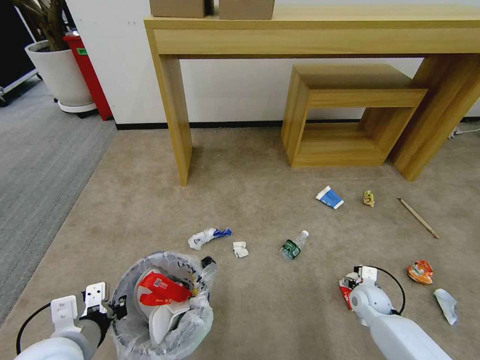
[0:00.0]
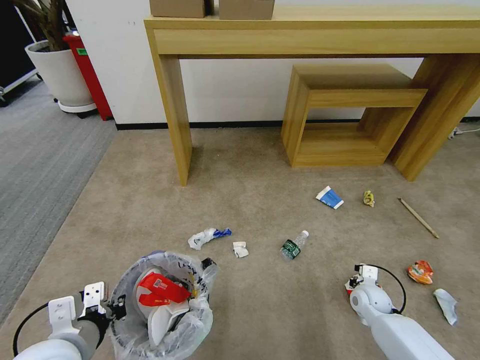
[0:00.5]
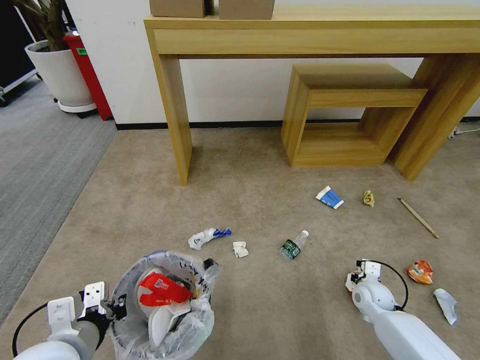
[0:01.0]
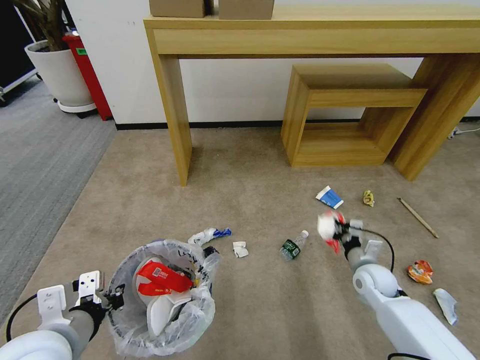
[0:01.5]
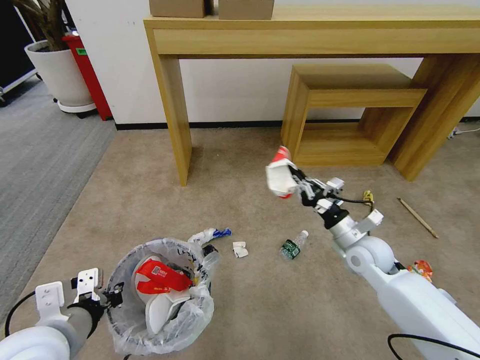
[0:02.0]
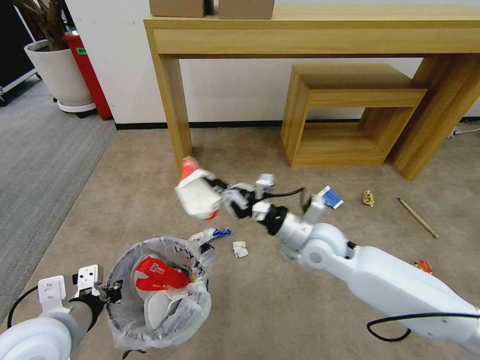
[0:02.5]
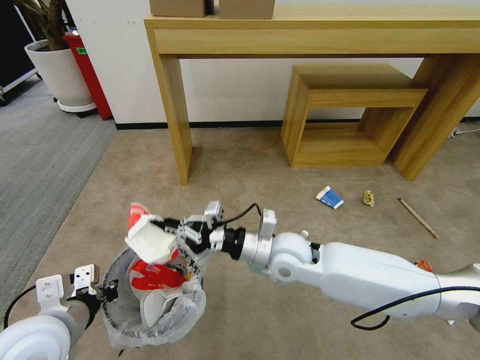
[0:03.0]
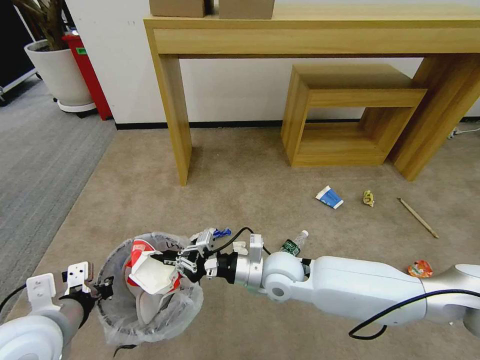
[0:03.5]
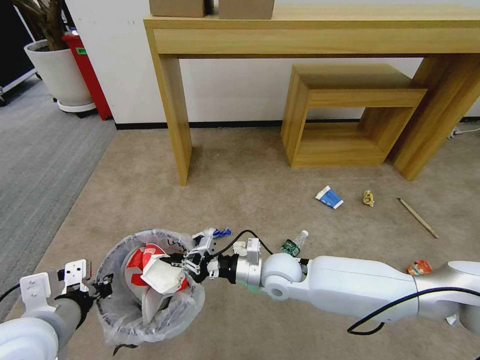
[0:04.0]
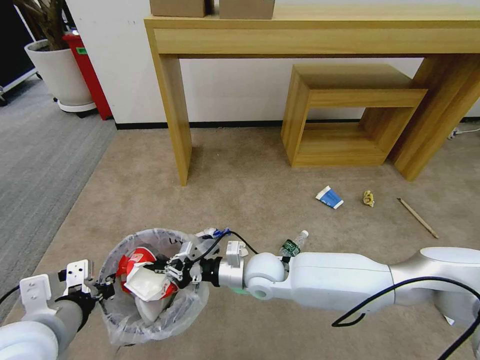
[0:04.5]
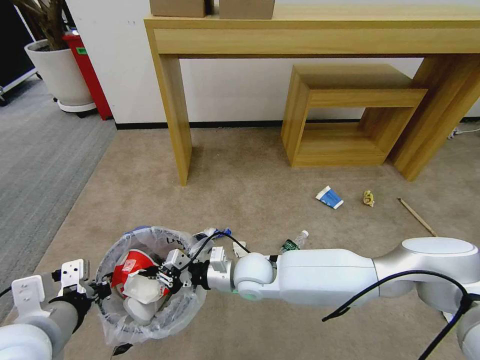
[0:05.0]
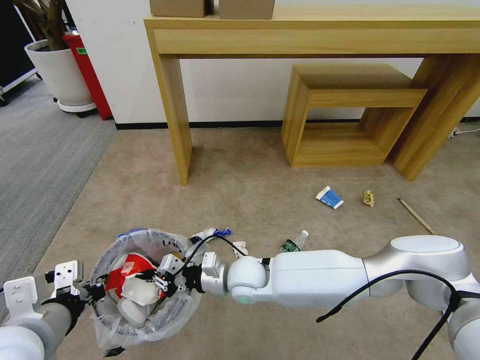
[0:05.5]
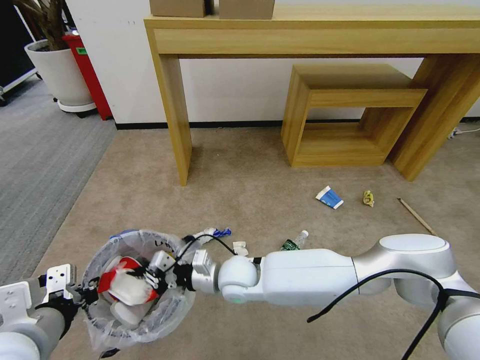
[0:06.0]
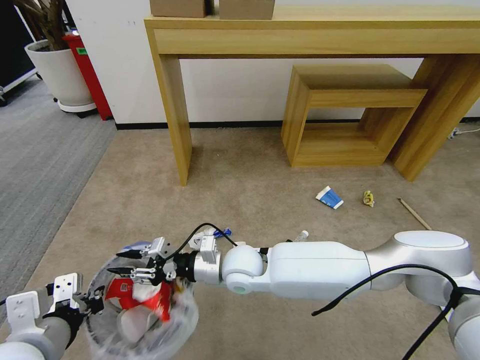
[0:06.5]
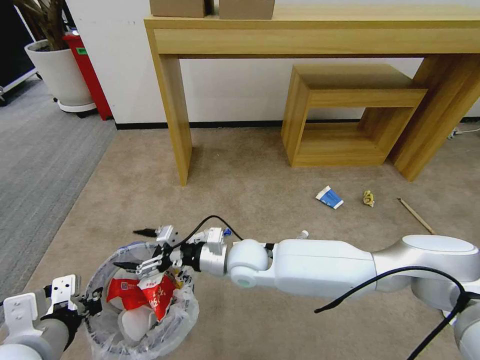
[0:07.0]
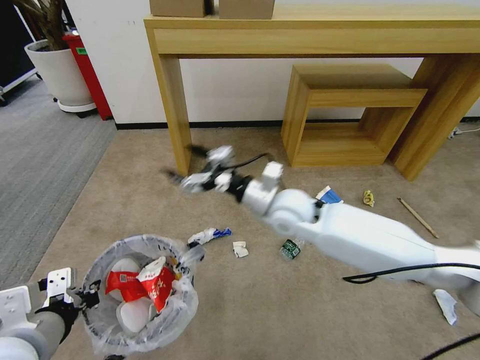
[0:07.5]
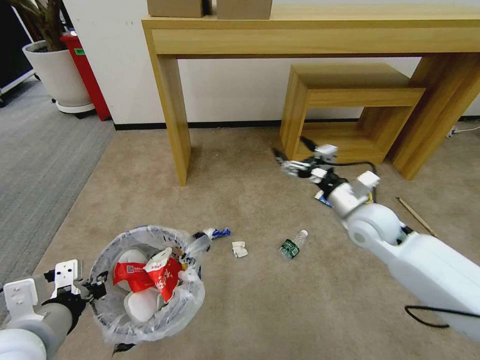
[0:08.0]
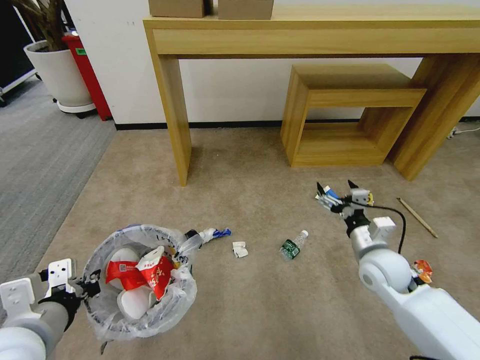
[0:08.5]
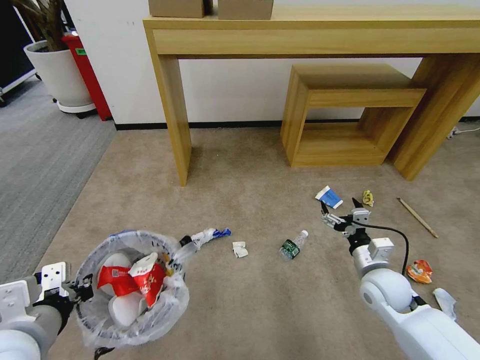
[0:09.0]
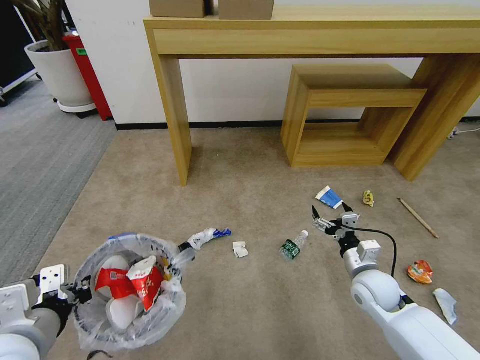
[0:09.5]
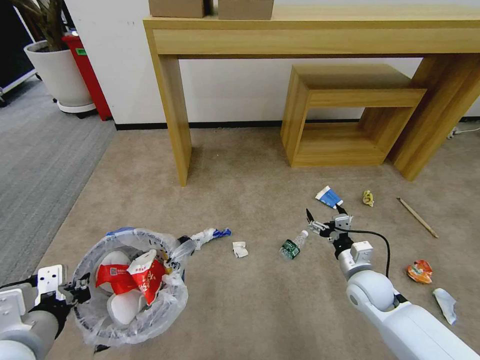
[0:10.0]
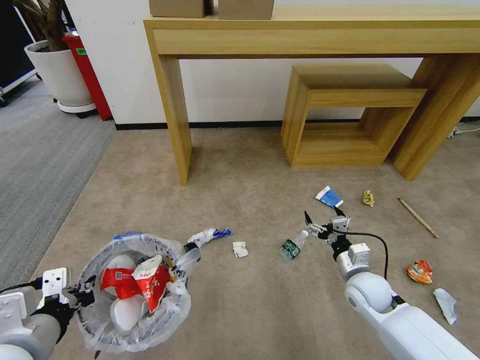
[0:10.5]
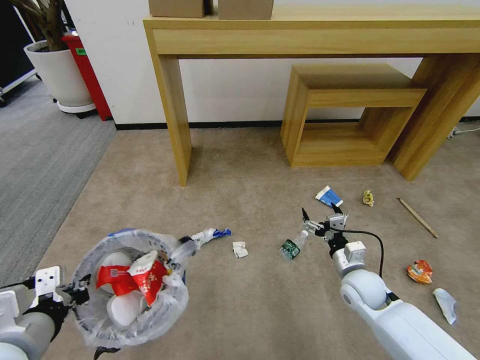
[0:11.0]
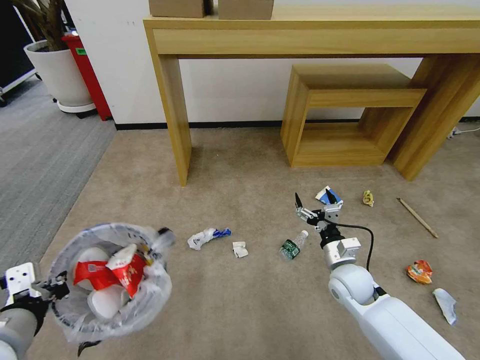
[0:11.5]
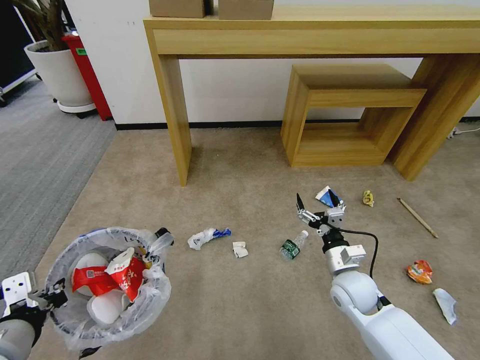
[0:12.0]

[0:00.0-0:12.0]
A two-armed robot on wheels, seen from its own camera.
Task of the whole recording: Pick up the trash bin and place the garbage on the floor into it.
0:00.0 to 0:02.0: The right gripper goes approximately 20 cm upward, and closes its fingers.
0:02.0 to 0:04.0: The right gripper heads to the left, covering about 20 cm.
0:04.0 to 0:06.0: The right gripper heads to the left, covering roughly 10 cm.
0:06.0 to 0:08.0: The right gripper travels to the right by roughly 30 cm, and opens.
0:08.0 to 0:10.0: The right gripper shifts about 15 cm downward and backward.
0:10.0 to 0:12.0: The grippers stay close to where they were, moving slightly.

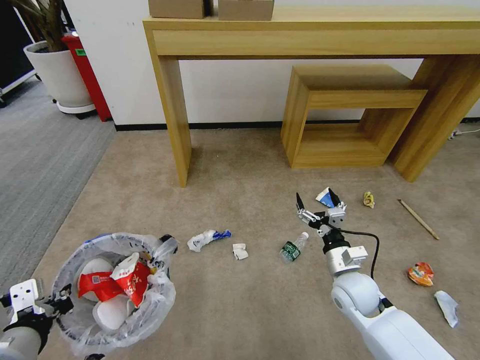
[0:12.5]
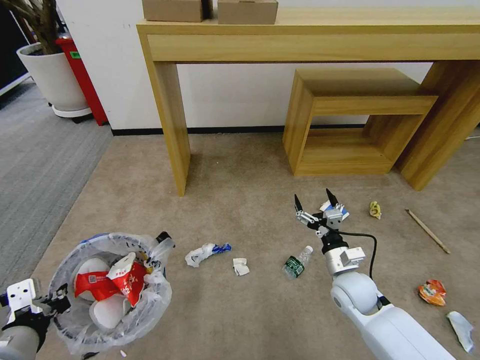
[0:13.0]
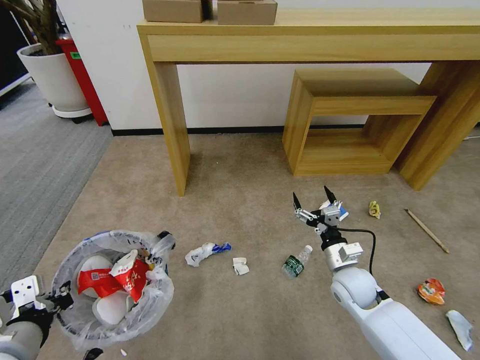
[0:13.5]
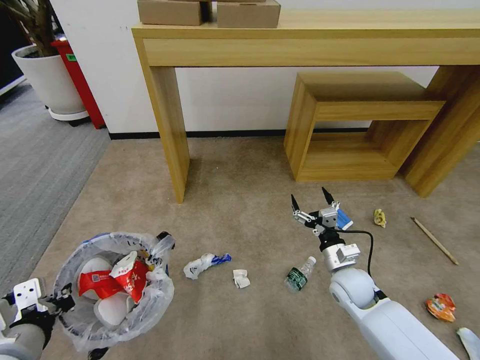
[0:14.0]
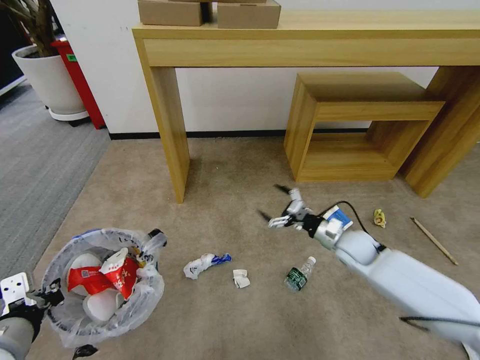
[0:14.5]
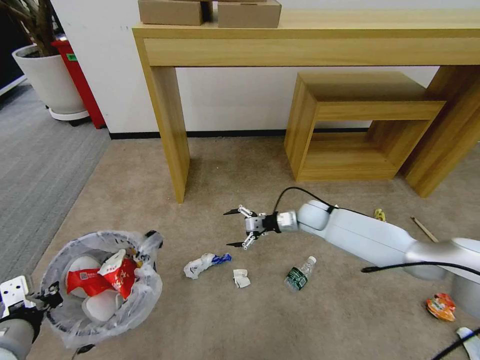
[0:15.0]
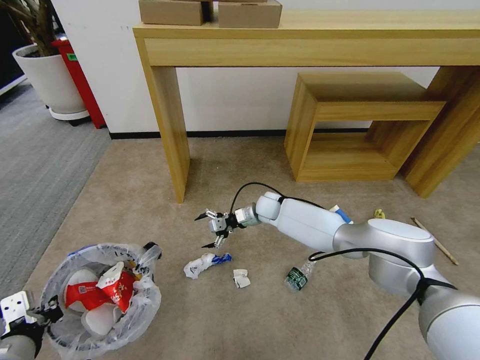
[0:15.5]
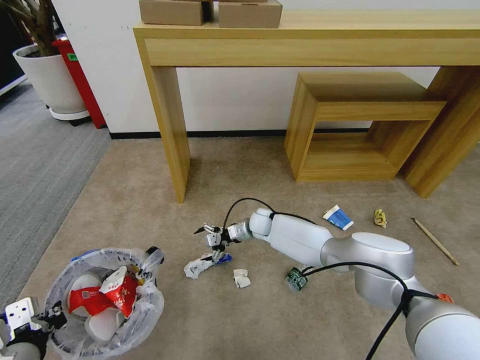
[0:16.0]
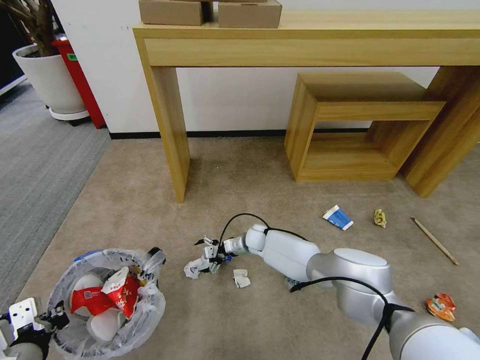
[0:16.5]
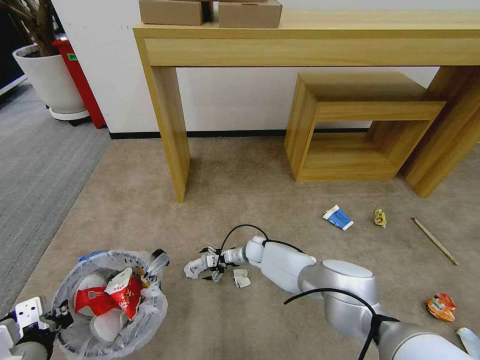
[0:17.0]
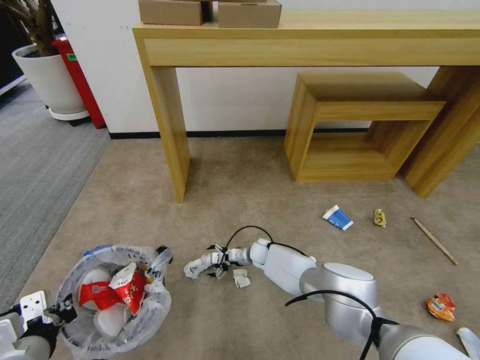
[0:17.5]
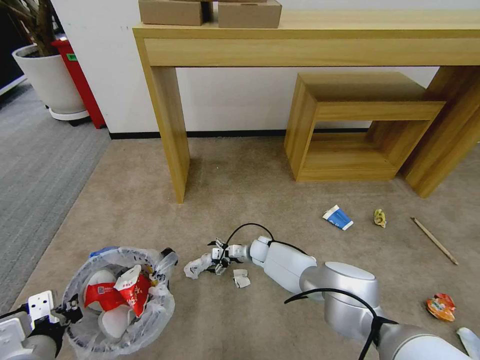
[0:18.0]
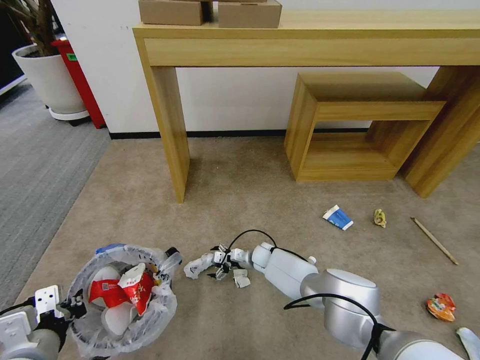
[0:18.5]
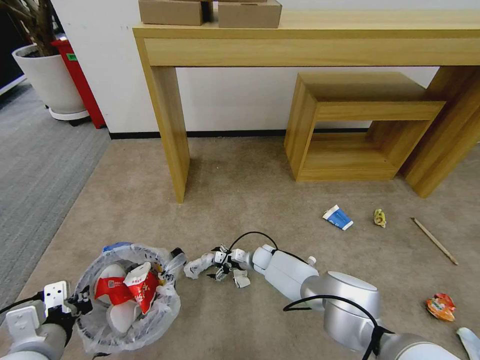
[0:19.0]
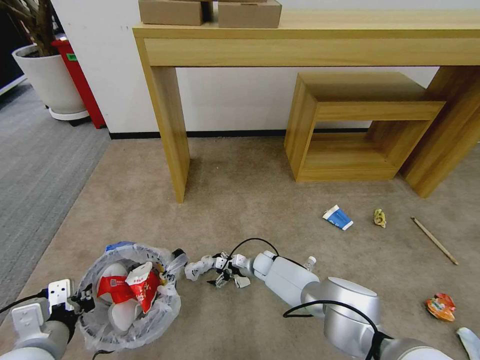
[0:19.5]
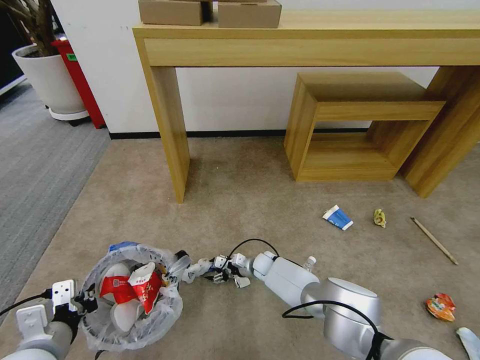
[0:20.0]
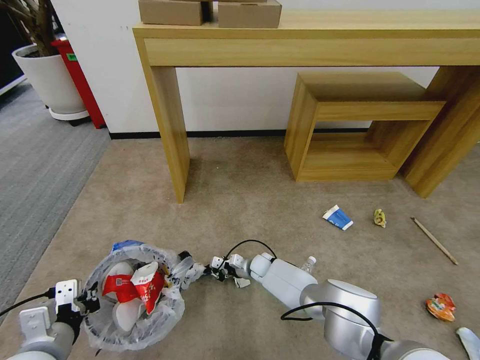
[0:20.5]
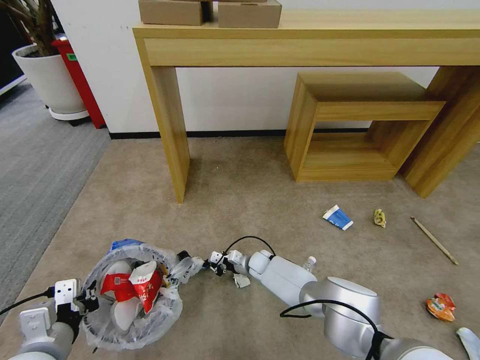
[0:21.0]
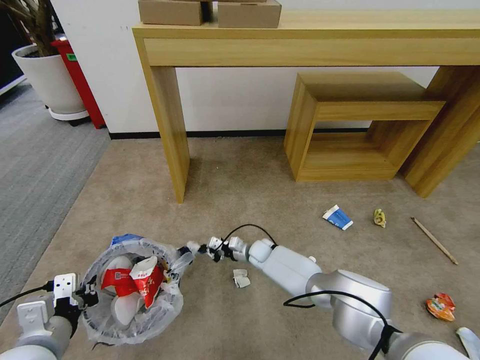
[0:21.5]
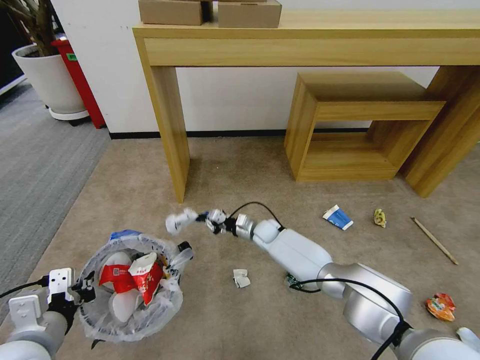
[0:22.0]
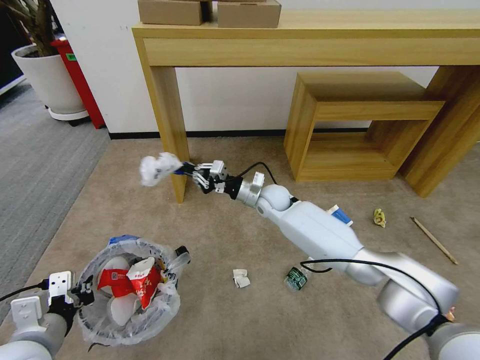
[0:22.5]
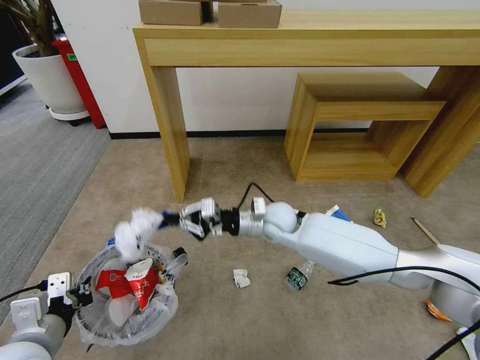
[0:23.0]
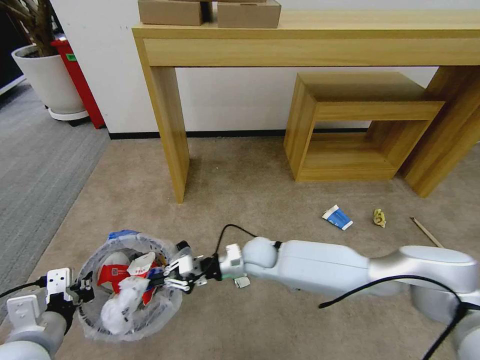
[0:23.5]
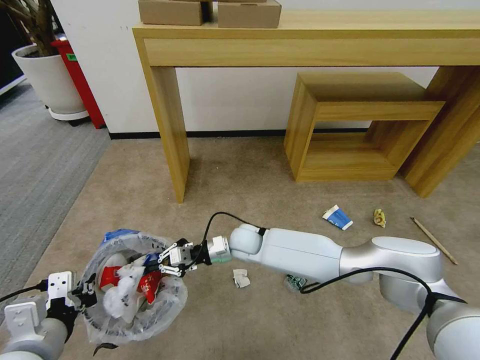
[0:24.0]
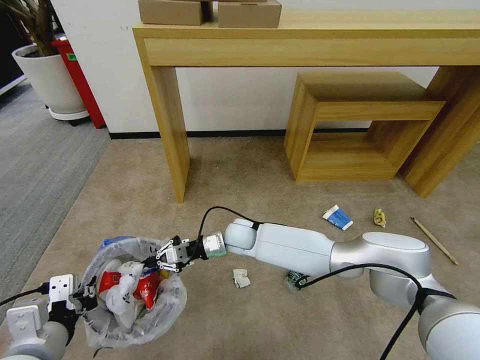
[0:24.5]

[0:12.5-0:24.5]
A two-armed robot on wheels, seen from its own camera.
Task of the whole recording: Pick up the trash bin and place the garbage on the floor into it.
0:12.5 to 0:14.5: The right gripper heads forward, covering about 10 cm.
0:14.5 to 0:16.5: The right gripper moves to the left, downward and forward, approximately 30 cm, while the left gripper moves some 5 cm.
0:16.5 to 0:18.5: The right gripper shifts approximately 5 cm downward.
0:18.5 to 0:20.5: The right gripper closes its fingers.
0:20.5 to 0:22.5: The right gripper moves upward, some 25 cm.
0:22.5 to 0:24.5: The right gripper shifts roughly 15 cm to the left, backward and downward.

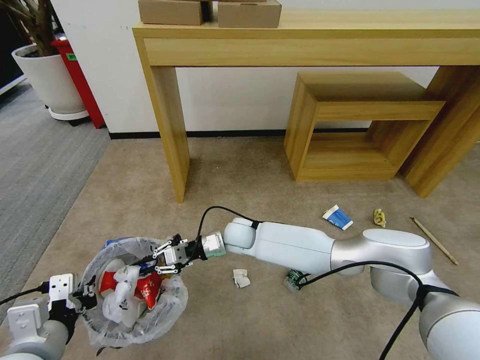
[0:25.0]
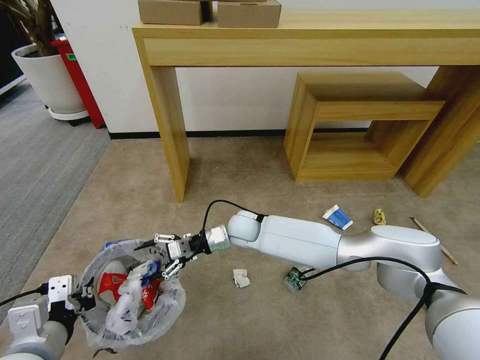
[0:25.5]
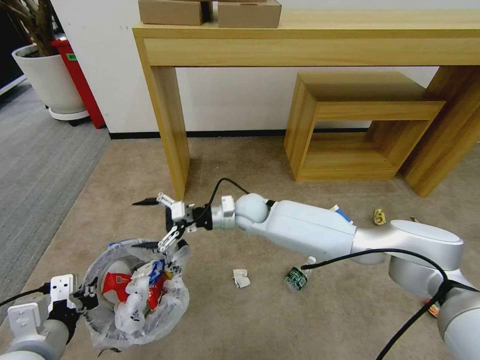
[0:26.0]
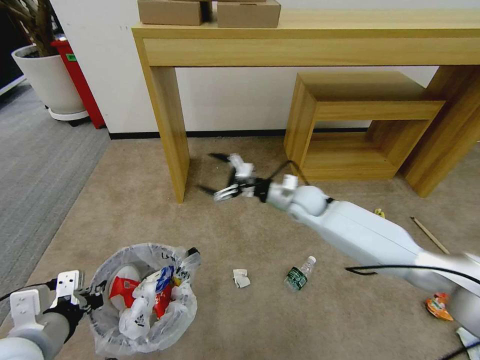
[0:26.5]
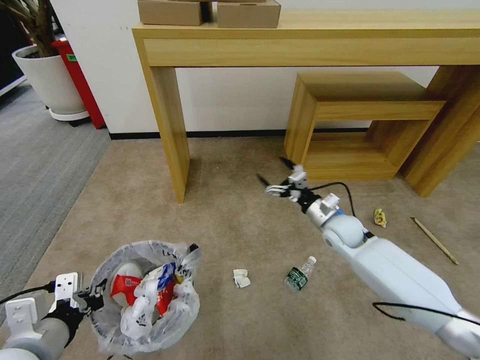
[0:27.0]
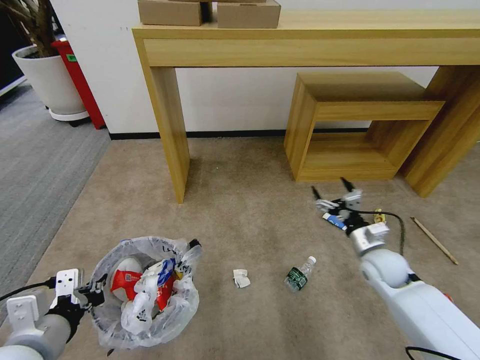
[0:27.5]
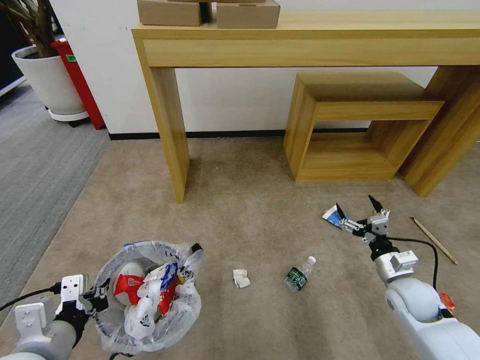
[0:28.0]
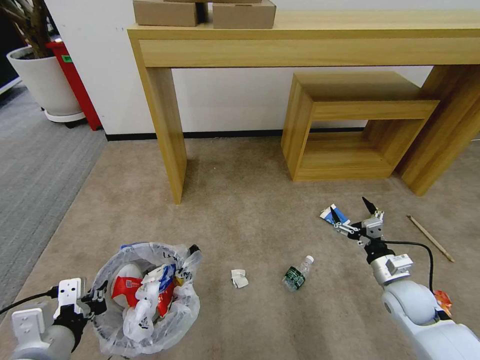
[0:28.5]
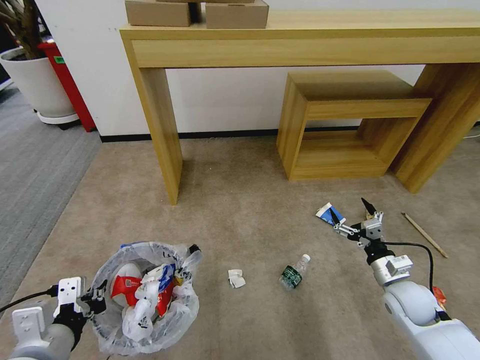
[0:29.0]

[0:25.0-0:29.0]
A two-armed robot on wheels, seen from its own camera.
Task of the whole recording: Pick up the trash bin and place the garbage on the floor into it.
0:25.0 to 0:27.0: The right gripper goes roughly 25 cm to the right, and opens.
0:27.0 to 0:29.0: The right gripper moves backward and to the right, some 20 cm.
